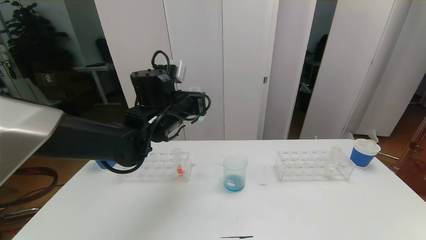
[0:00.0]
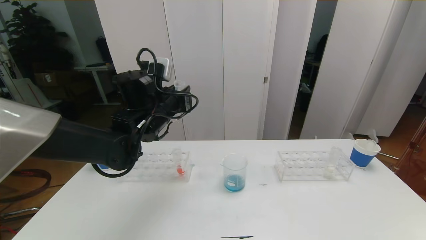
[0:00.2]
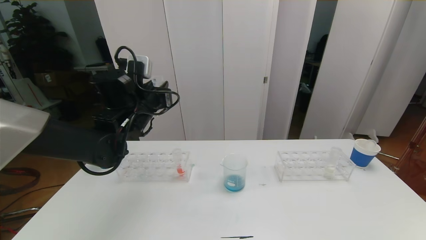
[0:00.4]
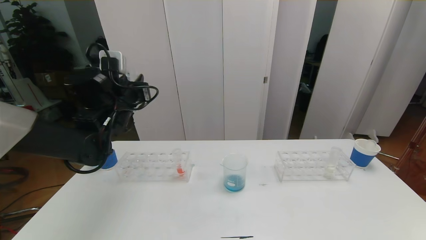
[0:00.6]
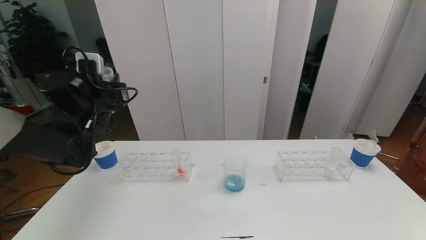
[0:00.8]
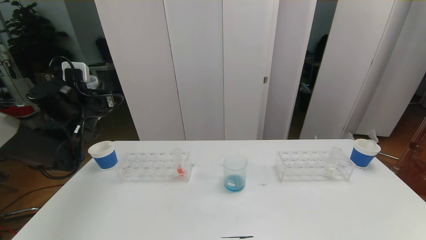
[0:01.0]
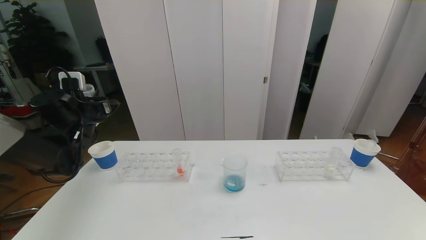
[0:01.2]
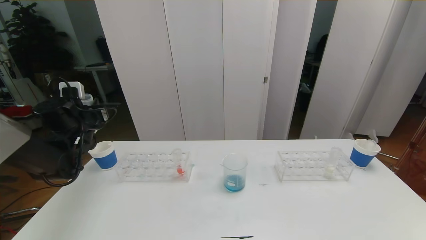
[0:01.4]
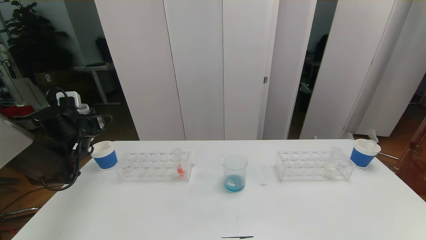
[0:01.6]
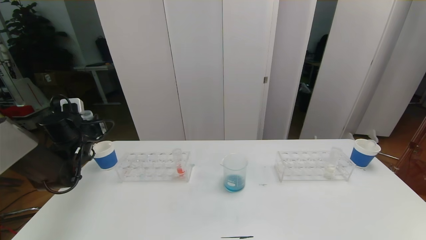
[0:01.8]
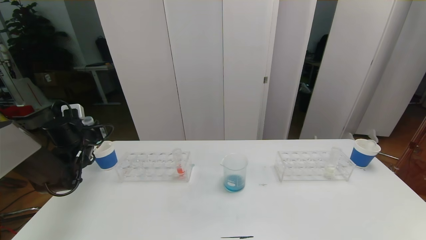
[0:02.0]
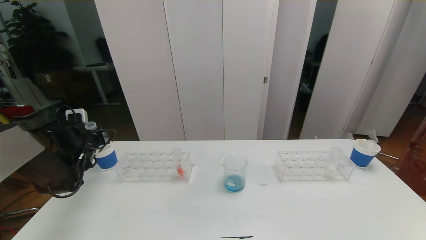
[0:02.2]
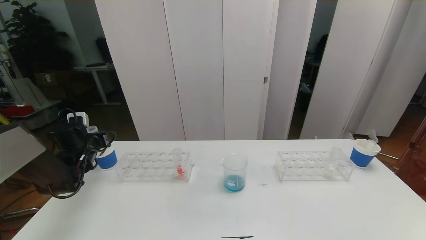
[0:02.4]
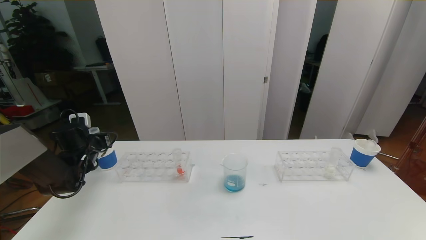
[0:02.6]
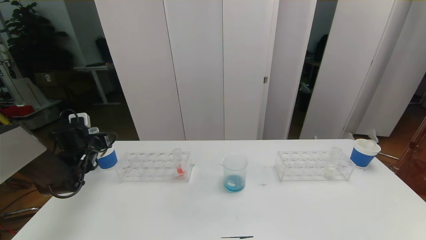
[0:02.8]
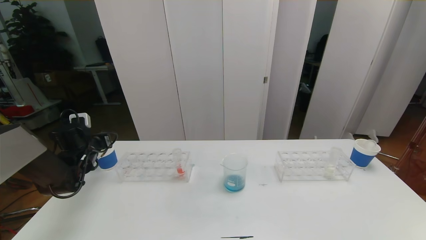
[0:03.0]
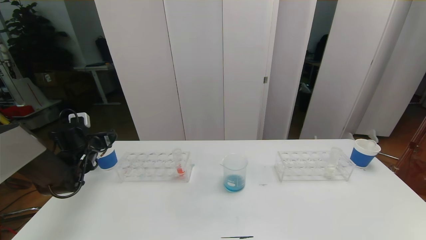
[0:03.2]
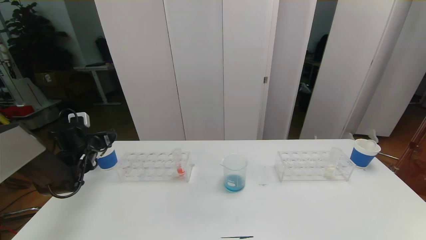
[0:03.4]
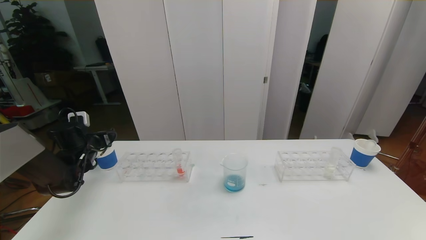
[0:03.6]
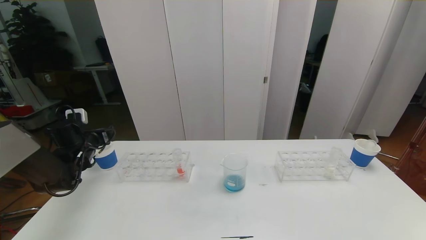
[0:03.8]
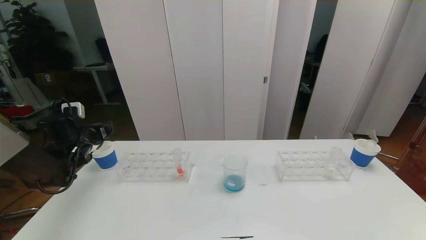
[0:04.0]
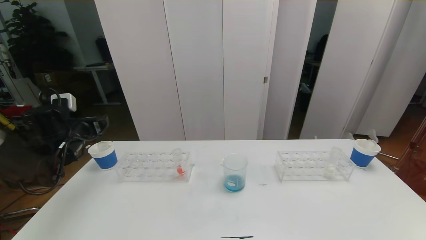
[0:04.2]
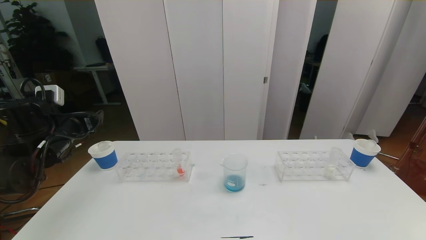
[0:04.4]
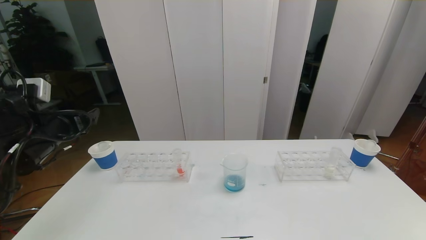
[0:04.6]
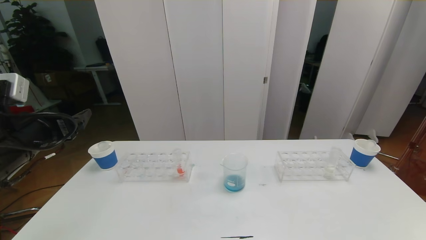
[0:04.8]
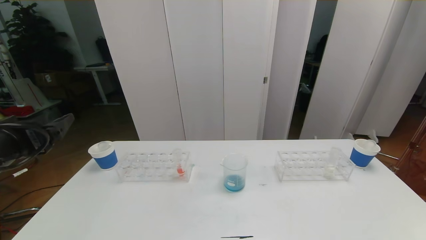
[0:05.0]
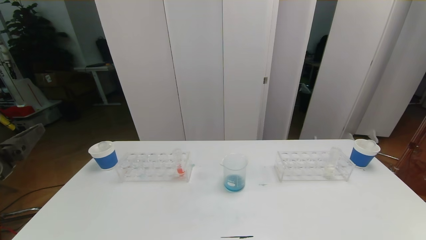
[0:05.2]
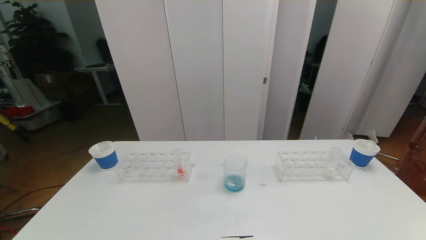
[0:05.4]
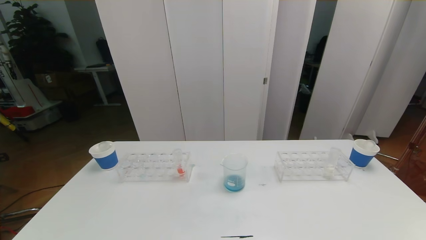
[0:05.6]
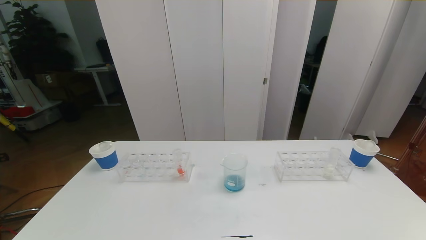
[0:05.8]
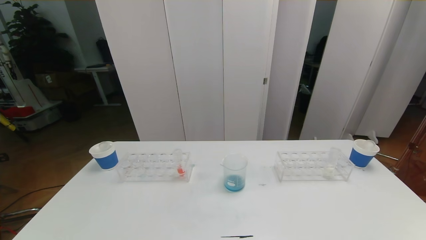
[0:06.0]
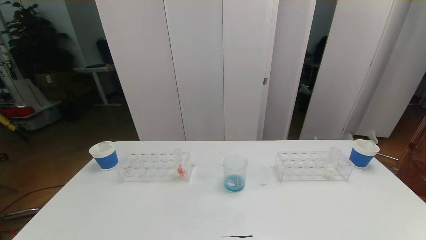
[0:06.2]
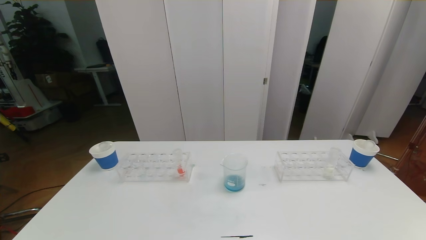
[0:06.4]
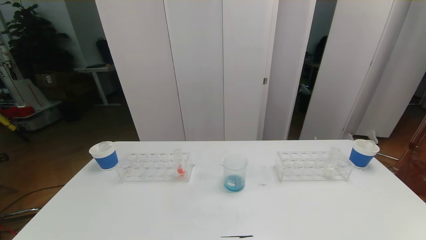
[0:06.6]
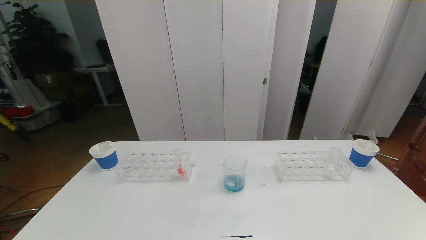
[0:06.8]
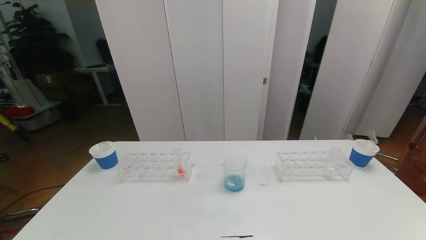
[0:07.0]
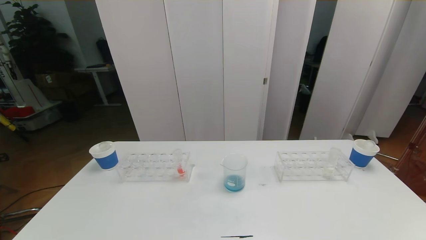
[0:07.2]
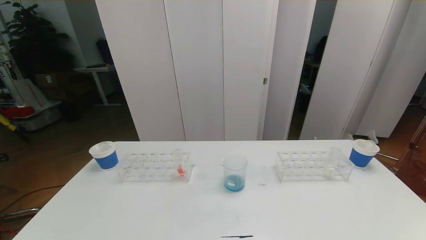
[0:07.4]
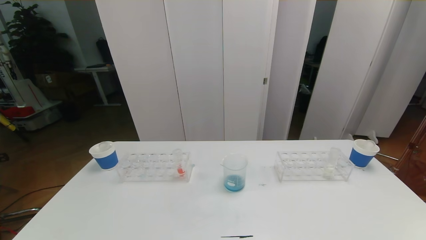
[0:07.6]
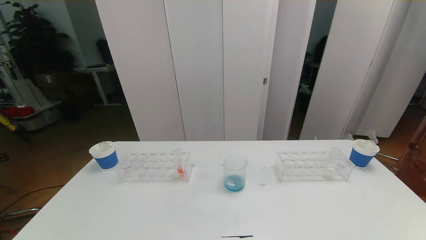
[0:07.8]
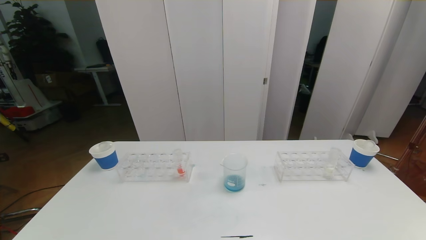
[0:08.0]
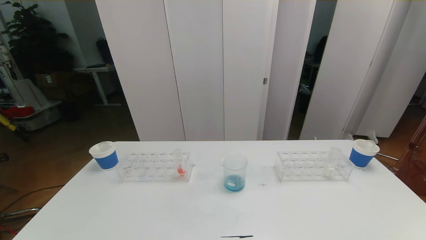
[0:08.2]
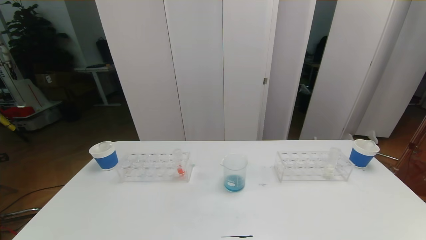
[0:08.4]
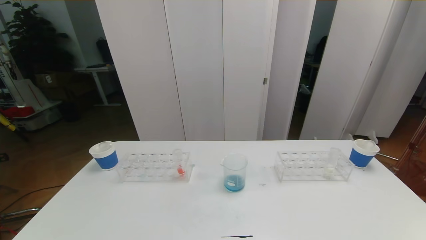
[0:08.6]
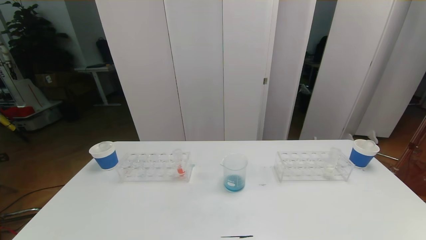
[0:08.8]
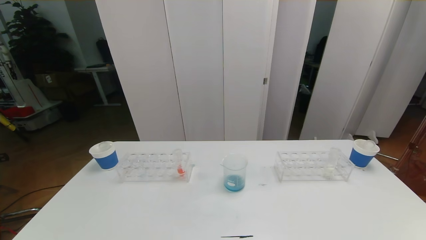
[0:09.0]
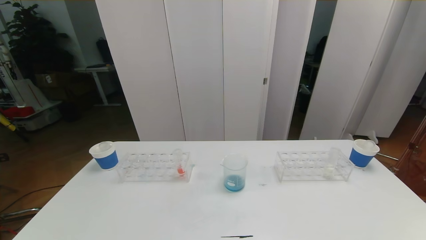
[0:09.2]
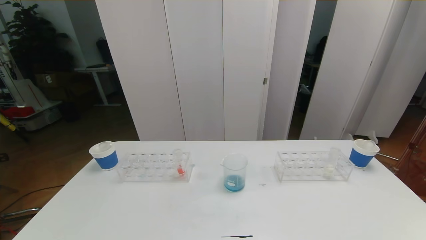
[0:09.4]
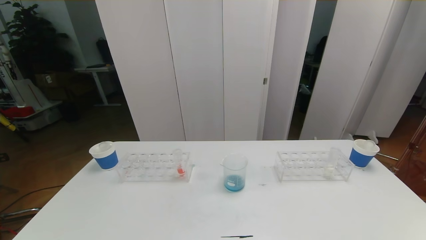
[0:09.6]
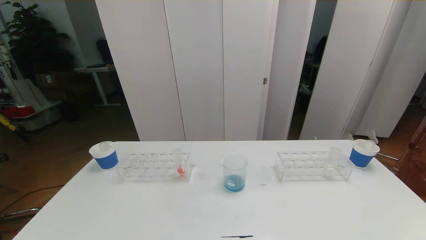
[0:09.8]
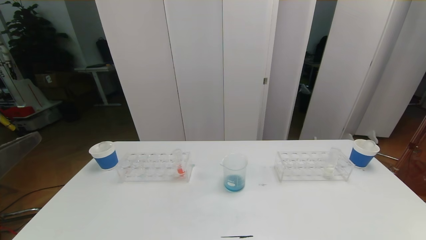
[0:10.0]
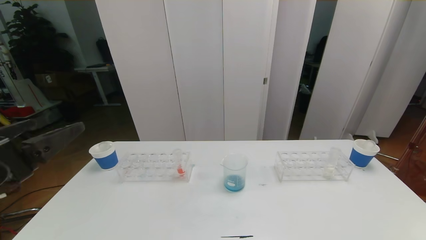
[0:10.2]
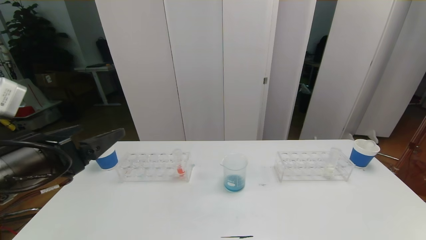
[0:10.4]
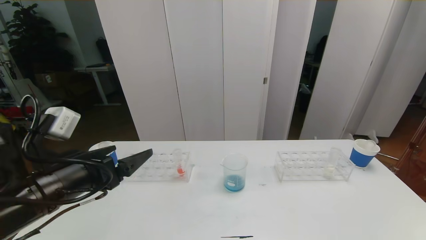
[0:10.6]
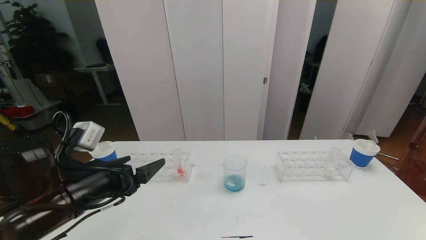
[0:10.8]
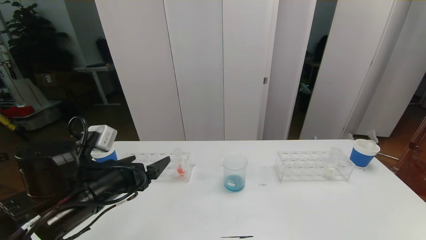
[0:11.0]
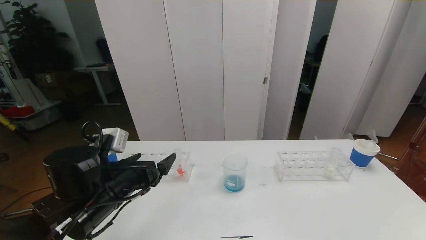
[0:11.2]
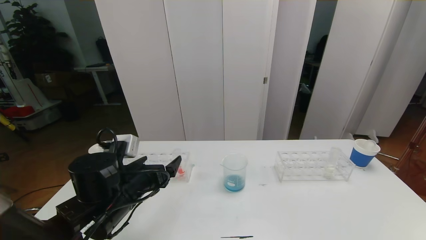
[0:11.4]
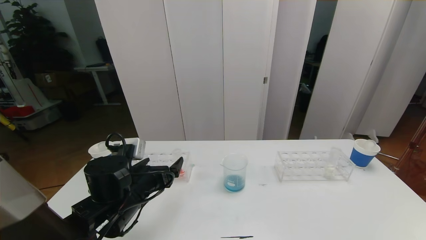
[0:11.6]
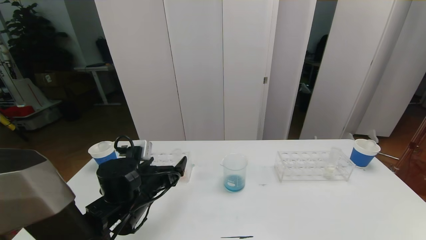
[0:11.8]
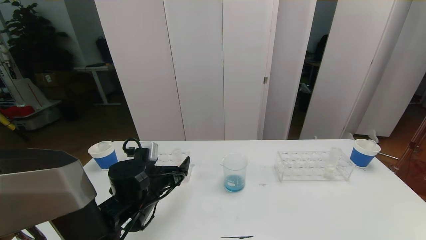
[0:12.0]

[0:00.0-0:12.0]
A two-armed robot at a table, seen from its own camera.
Task of the whole recording: pick up the test tube with red pigment the test tube with blue pigment and the test tube with white pigment by grippers and pour them into the beaker.
Step, 0:00.0 to 0:08.2: Pour the blue reagent into the graduated cylinder and place the test tube into the paper cup.
0:00.0 to 0:01.6: The left gripper is displaced to the left by some 25 cm.
0:01.6 to 0:03.0: The left gripper shifts some 5 cm downward, and opens.
0:03.0 to 0:04.4: The left gripper is displaced upward and backward by approximately 10 cm, and opens its fingers.
0:04.4 to 0:06.0: The left gripper moves backward, approximately 40 cm.
0:09.0 to 0:10.4: The left gripper moves forward and upward, approximately 25 cm.
0:10.4 to 0:12.0: The left gripper goes some 20 cm downward, forward and to the right.

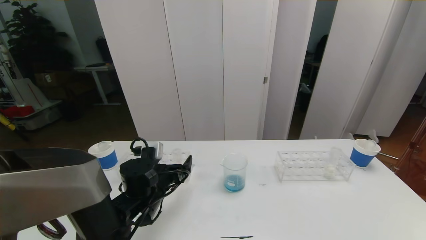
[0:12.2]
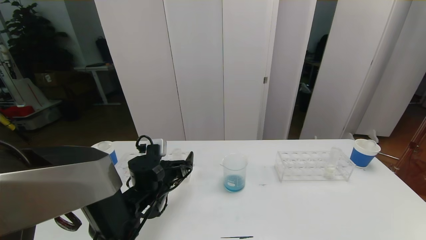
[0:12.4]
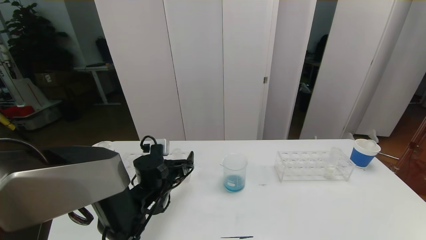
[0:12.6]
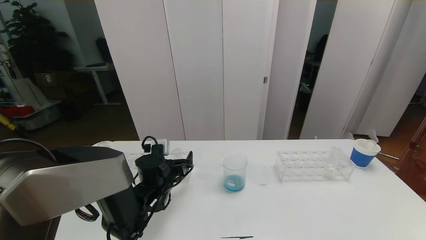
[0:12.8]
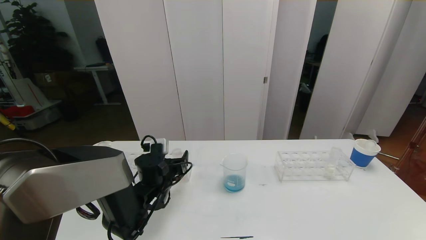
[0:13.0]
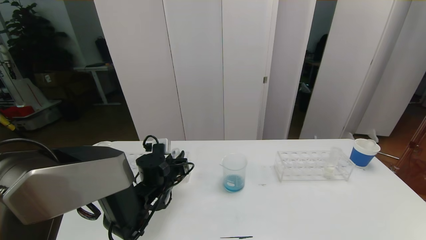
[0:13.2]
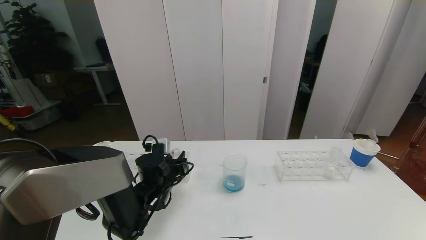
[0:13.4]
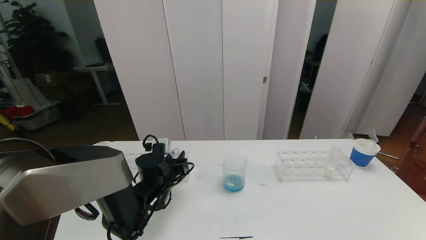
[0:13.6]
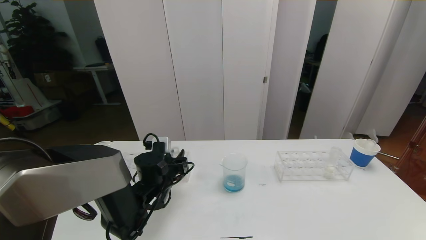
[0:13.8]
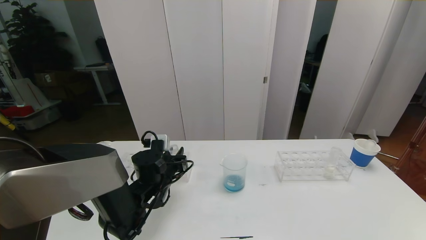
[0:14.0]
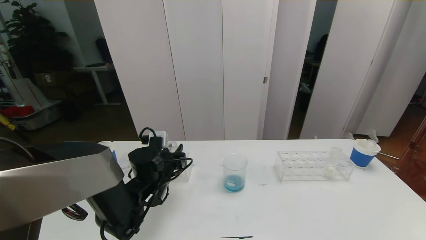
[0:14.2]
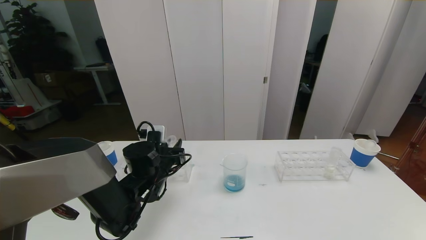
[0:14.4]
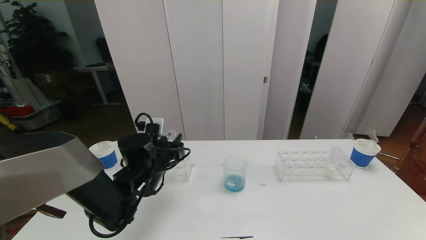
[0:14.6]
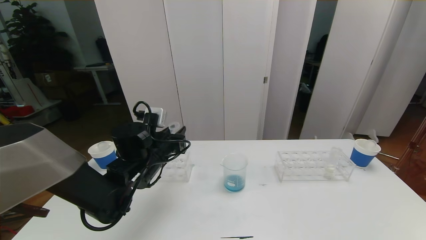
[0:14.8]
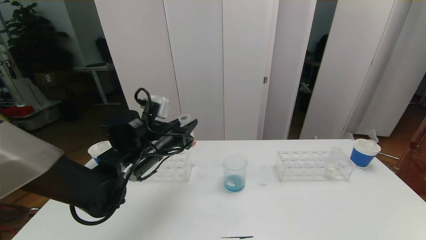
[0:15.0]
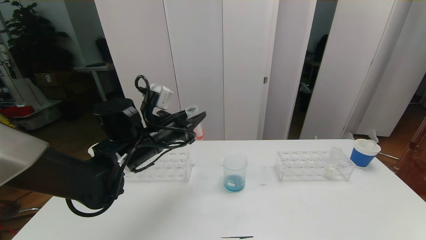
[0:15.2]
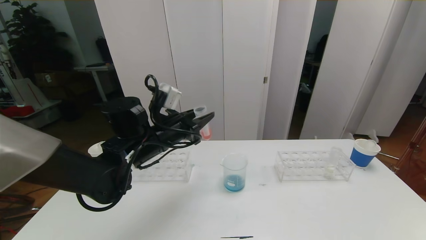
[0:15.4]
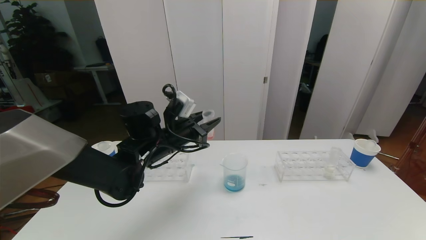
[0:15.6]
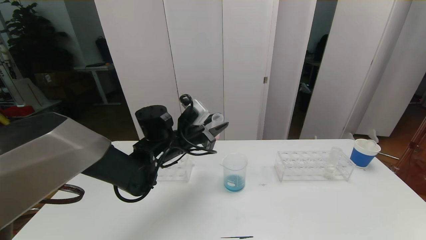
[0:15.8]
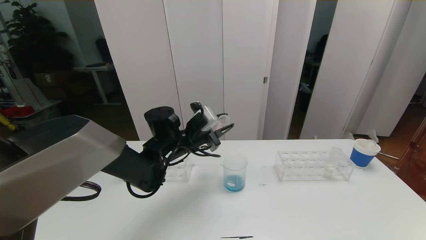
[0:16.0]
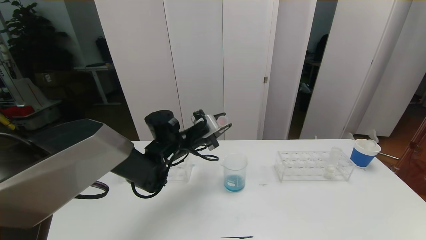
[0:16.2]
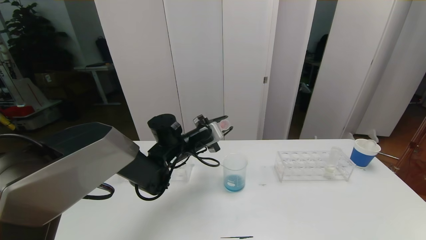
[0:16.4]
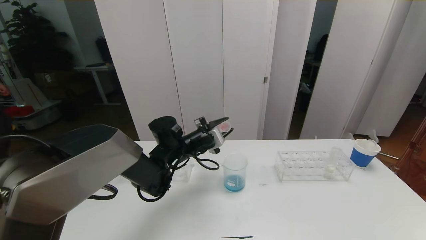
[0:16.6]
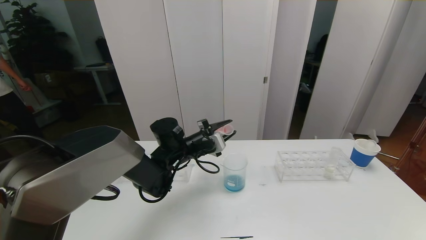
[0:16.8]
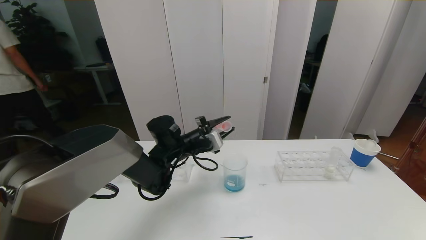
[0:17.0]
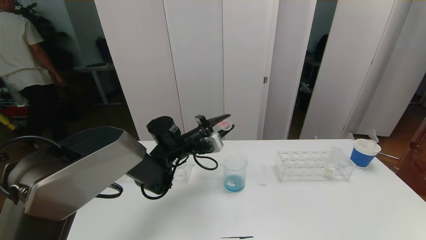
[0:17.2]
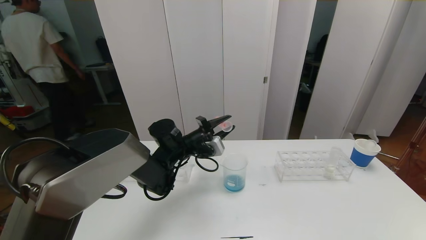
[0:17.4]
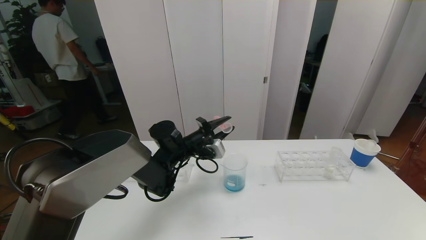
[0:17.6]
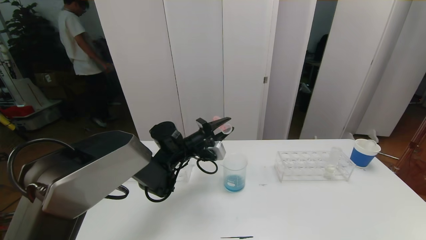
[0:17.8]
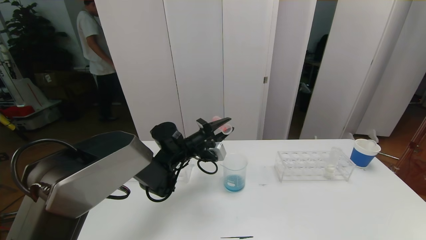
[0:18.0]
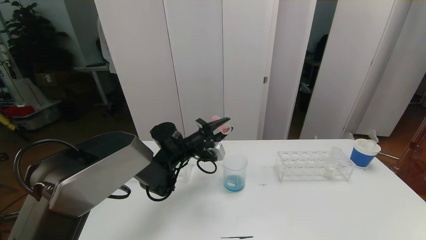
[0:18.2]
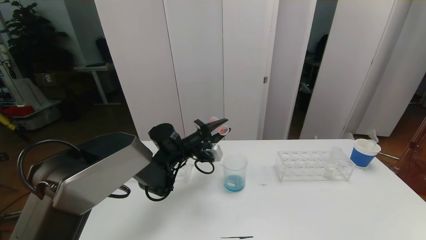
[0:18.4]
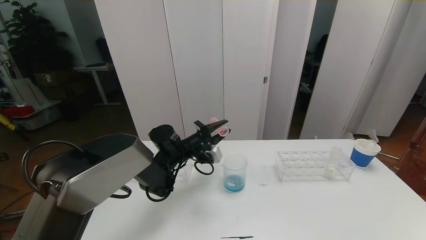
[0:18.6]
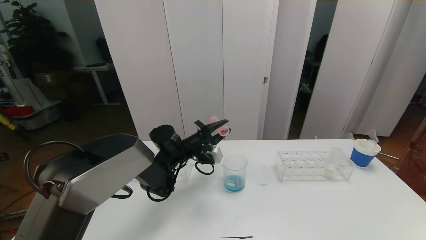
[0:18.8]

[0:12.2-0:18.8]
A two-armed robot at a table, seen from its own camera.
Task of the whole recording: pick up the test tube with red pigment the test tube with blue pigment and the test tube with white pigment by grippers and pour them into the beaker.
0:12.2 to 0:13.8: The left gripper closes its fingers.
0:13.8 to 0:15.4: The left gripper is displaced upward by about 15 cm.
0:15.4 to 0:17.2: The left gripper heads forward and downward, covering approximately 10 cm.
0:17.2 to 0:18.8: The grippers stay close to where they were, moving slightly.
